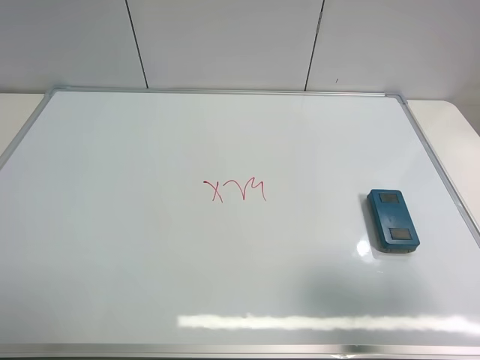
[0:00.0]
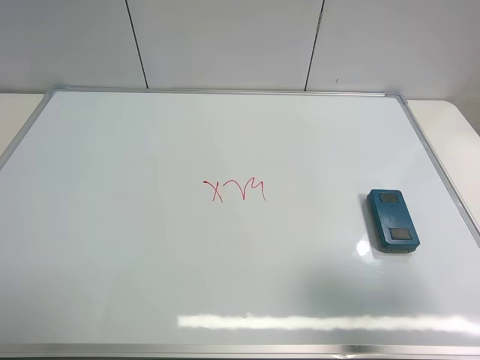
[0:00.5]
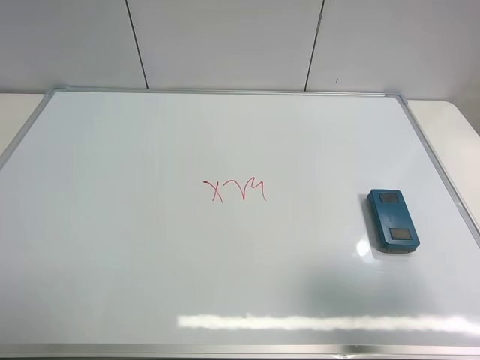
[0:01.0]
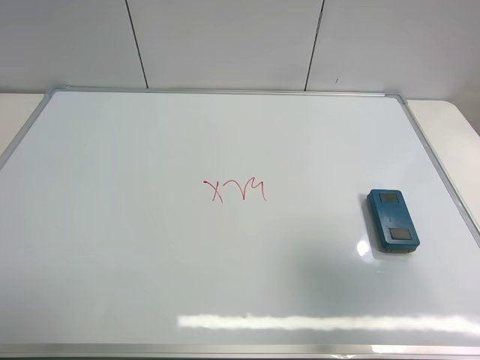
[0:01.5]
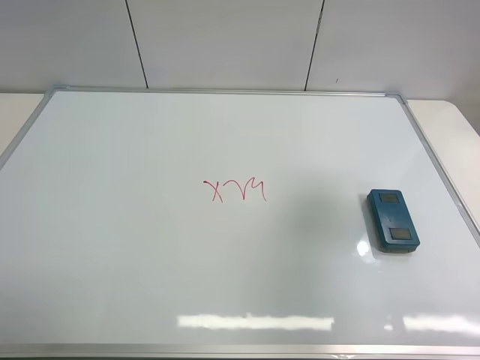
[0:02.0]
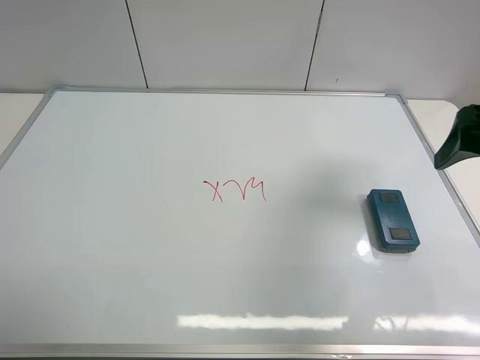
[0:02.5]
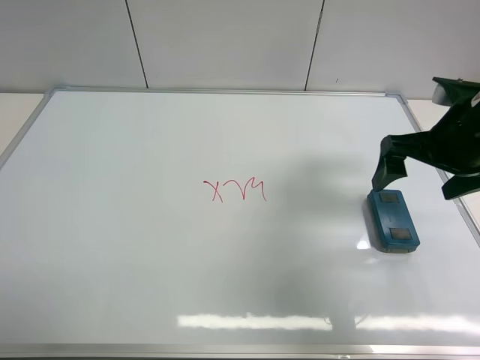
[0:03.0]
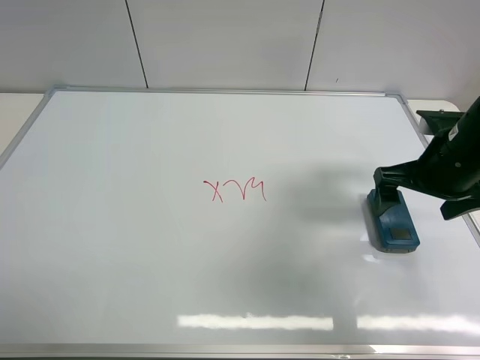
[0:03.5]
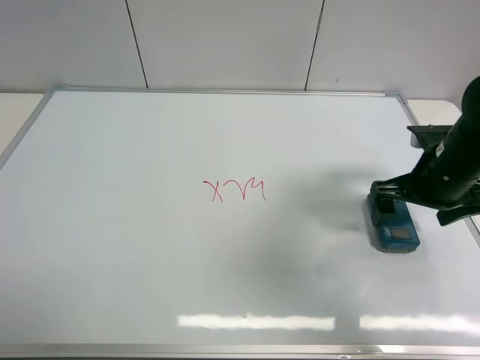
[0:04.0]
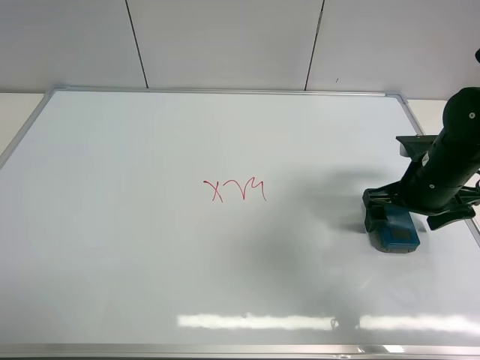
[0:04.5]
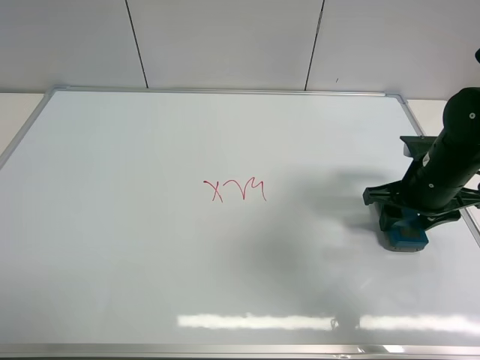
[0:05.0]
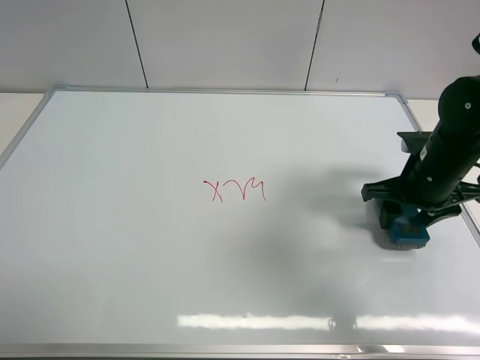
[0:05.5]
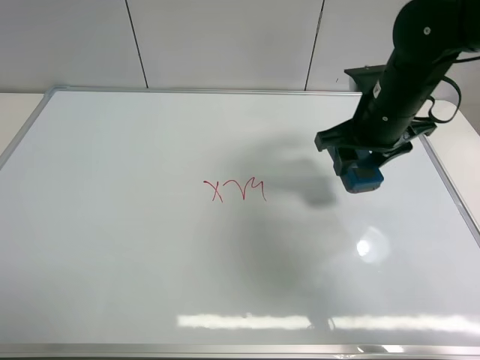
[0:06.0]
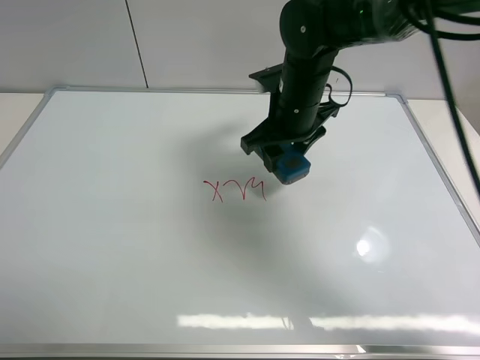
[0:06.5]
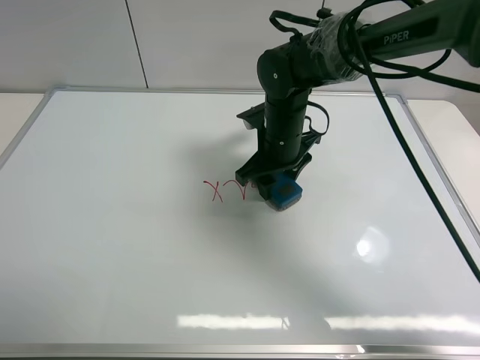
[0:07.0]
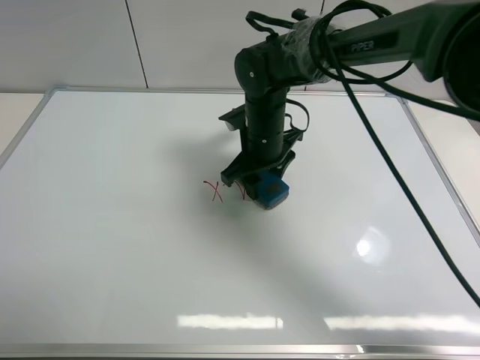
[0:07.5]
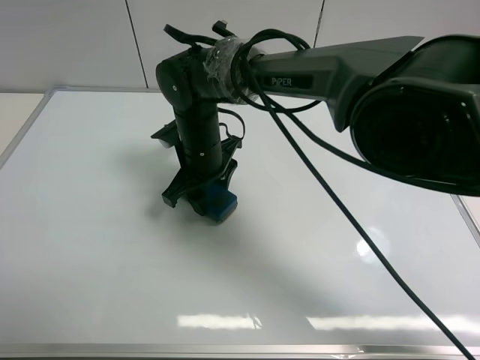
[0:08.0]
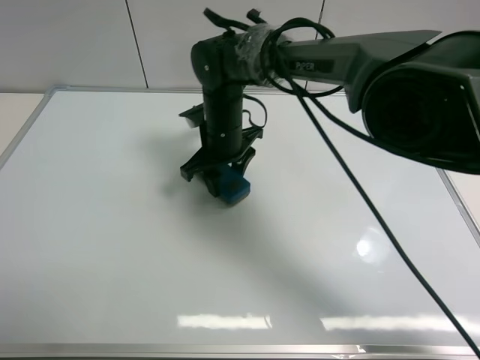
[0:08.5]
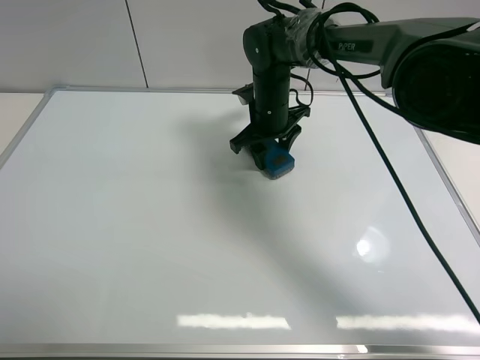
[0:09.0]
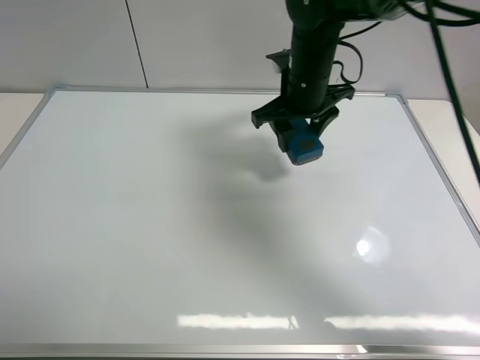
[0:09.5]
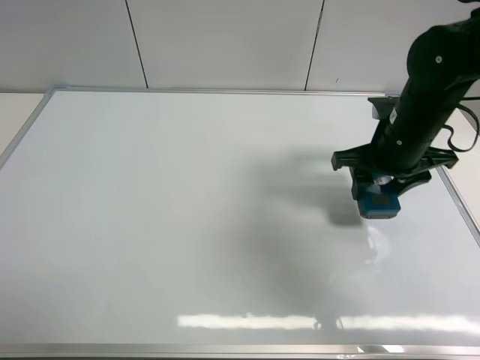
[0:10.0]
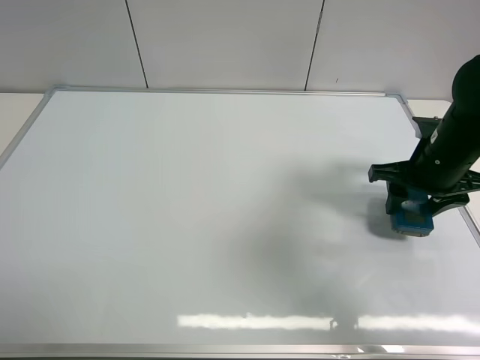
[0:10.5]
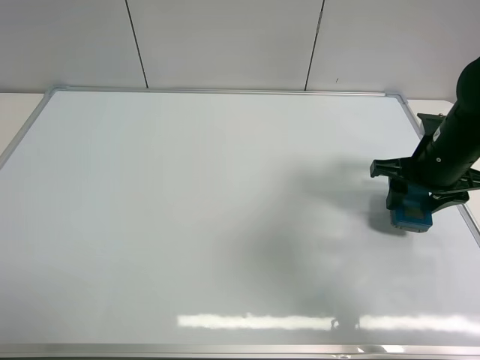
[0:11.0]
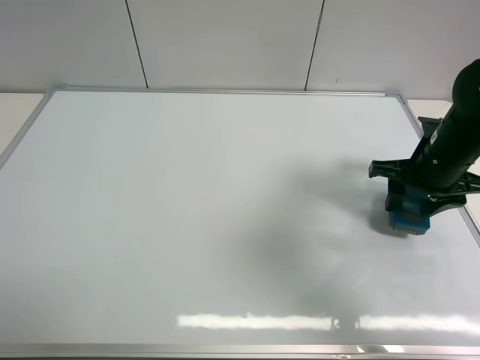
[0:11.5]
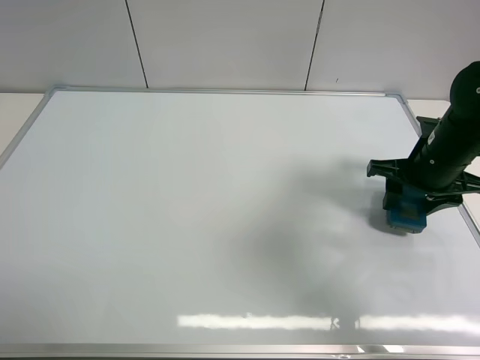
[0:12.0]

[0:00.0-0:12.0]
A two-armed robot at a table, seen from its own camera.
Task of the whole recording: use the right gripper to pick up the board eraser, wipe the notes on the whiteboard clean, and then put them back in place.
Step, 0:00.0 to 0:05.5: Pick up the board eraser with right gripper.
Step, 0:06.0 to 0:09.0: Wipe off the writing on the board with right gripper.
0:00.0 to 0:02.0: The right gripper goes about 15 cm forward.
0:02.0 to 0:04.0: The right gripper heads downward and forward, covering approximately 20 cm.
0:04.0 to 0:06.0: The right gripper moves to the left and upward, roughly 10 cm, and closes up.
0:06.0 to 0:08.0: The right gripper is displaced to the left by roughly 25 cm.
0:08.0 to 0:10.0: The right gripper goes about 30 cm to the right.
0:10.0 to 0:12.0: The right gripper heads to the right, covering approximately 5 cm.

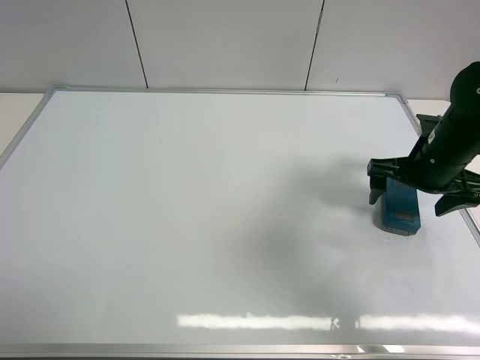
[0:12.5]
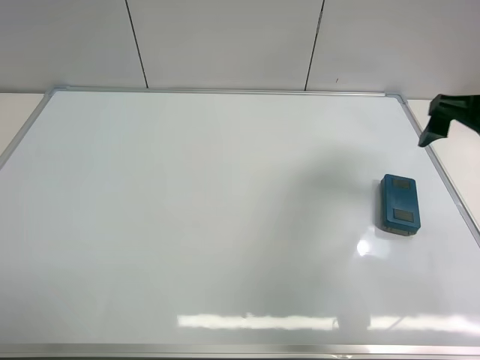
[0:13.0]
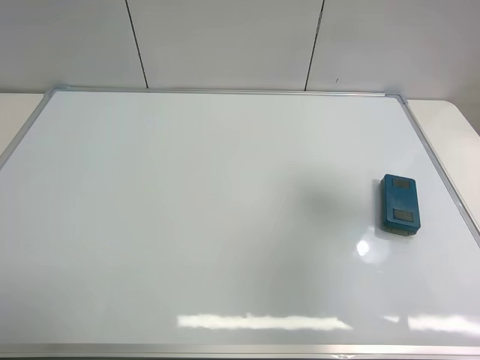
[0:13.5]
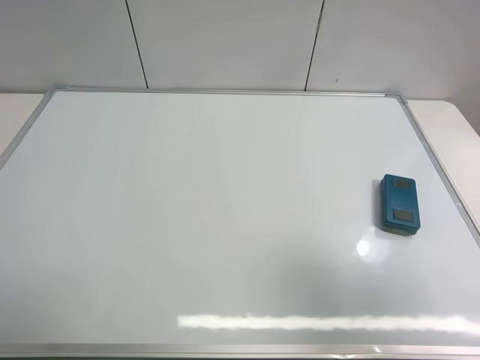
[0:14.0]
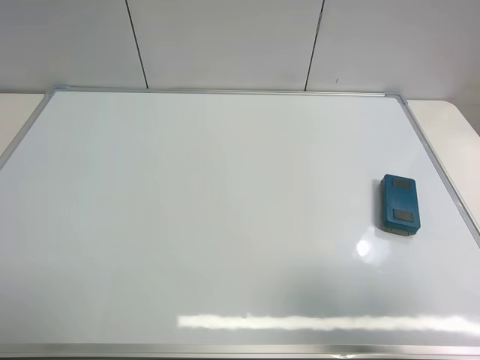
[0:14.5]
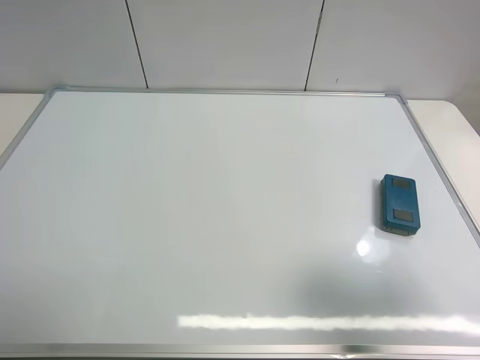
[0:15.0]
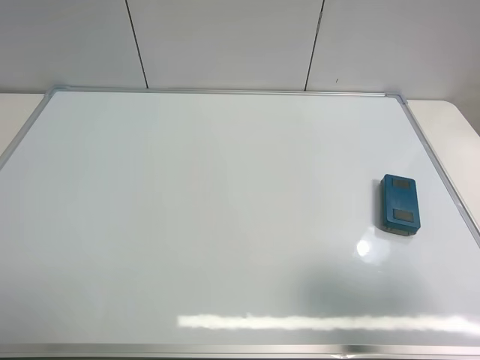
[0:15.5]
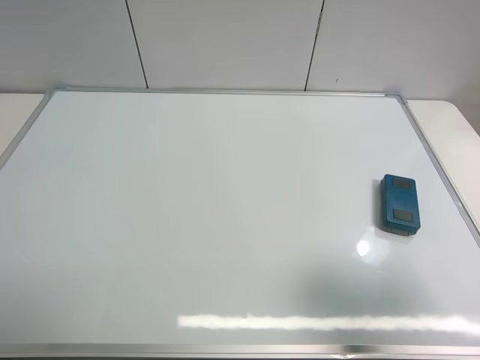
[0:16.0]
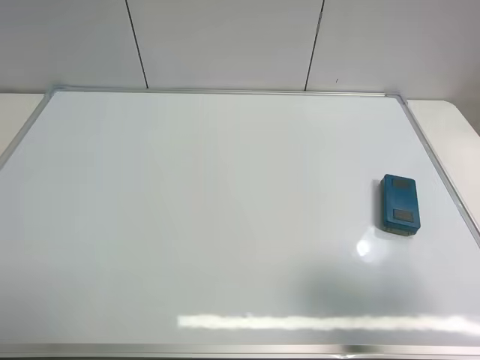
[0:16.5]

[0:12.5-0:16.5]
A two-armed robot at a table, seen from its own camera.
Task of the whole recording: use the right gripper to pick up the board eraser, wipe the notes on the whiteboard clean, and then put them back in place.
0:12.5 to 0:14.5: The right gripper heads backward and upward, covering about 35 cm.
